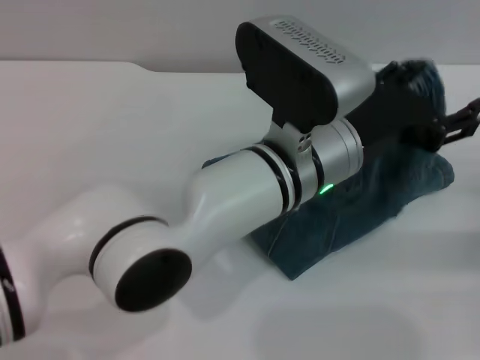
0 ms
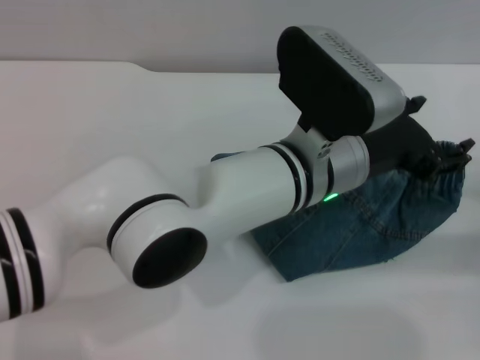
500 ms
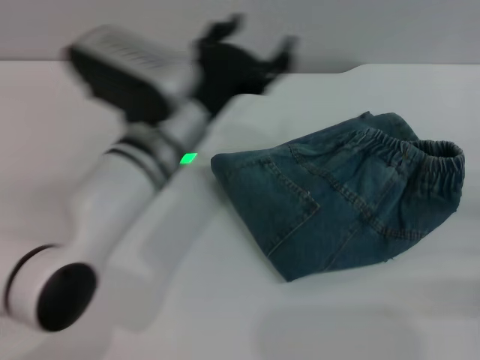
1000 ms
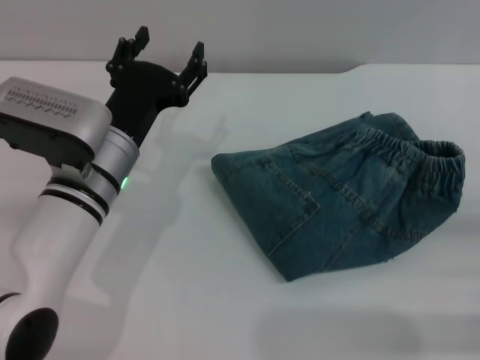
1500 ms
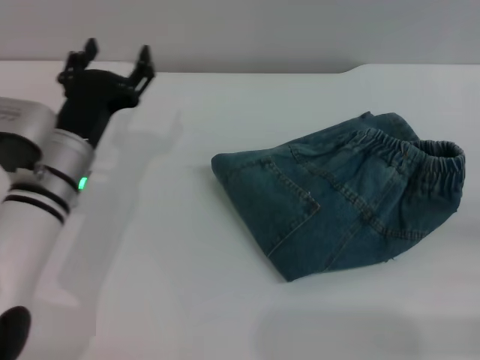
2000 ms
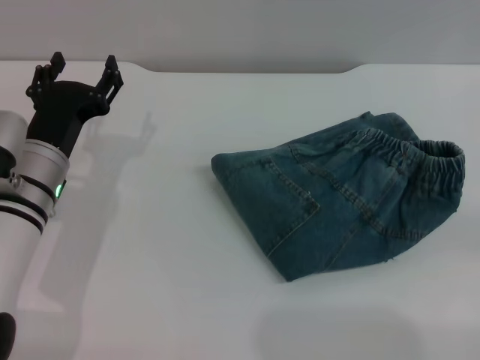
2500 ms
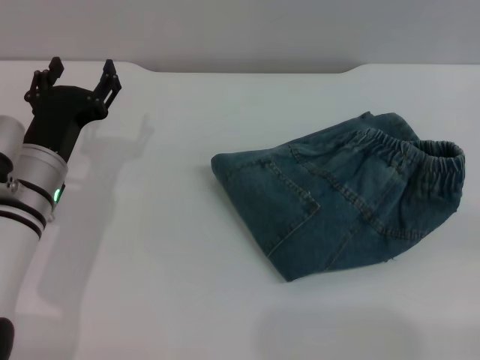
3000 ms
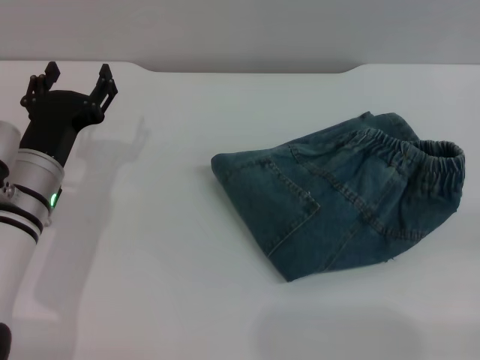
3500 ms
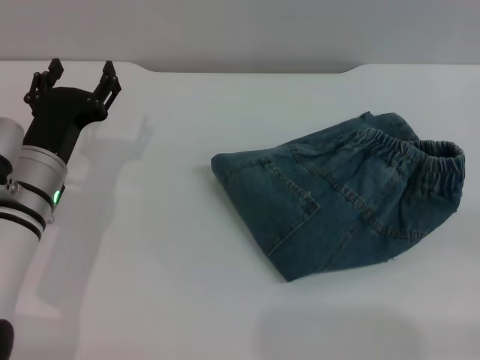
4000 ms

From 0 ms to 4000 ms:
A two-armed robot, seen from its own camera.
From 0 ms to 2000 ms: The right gripper moves backward, some 10 cm. The left gripper shifts about 20 cm to the left.
